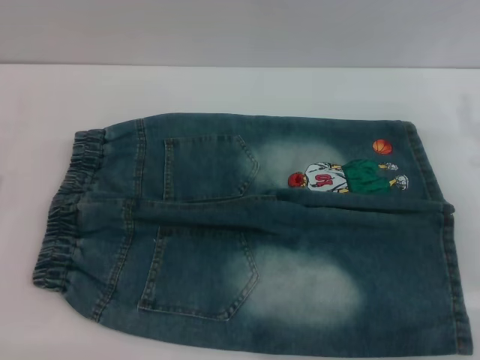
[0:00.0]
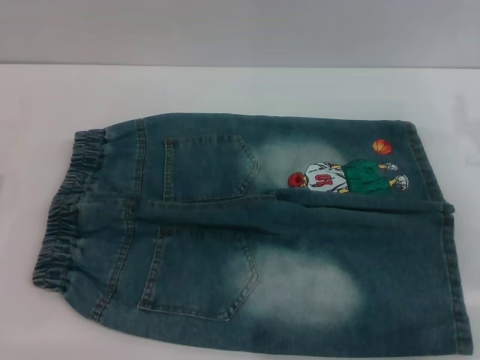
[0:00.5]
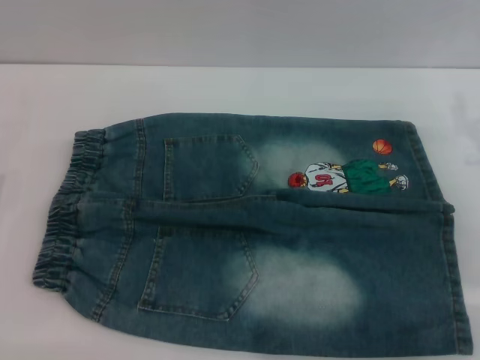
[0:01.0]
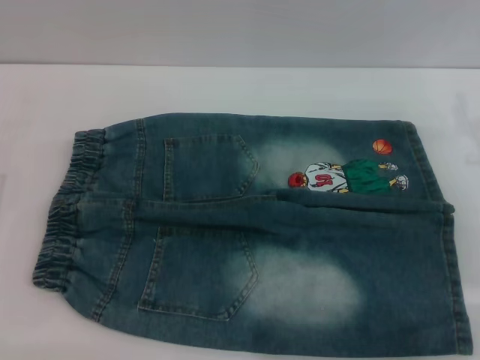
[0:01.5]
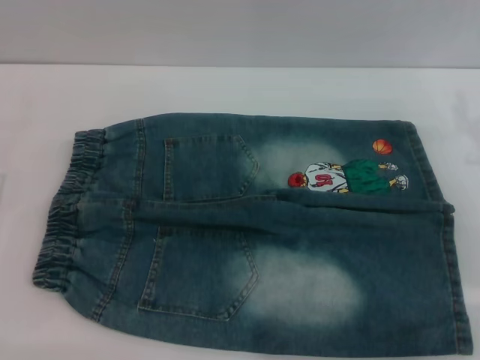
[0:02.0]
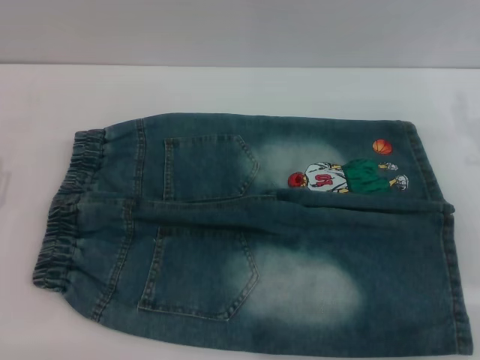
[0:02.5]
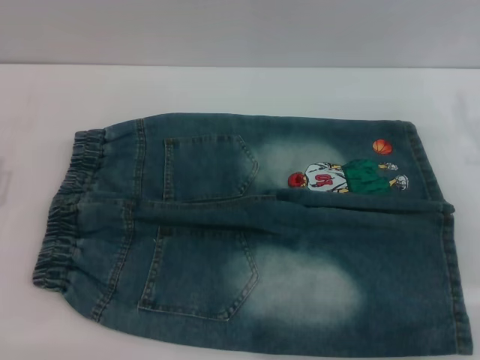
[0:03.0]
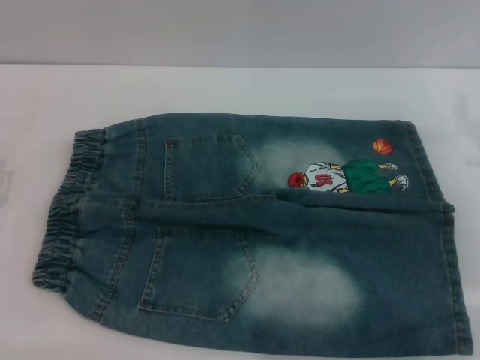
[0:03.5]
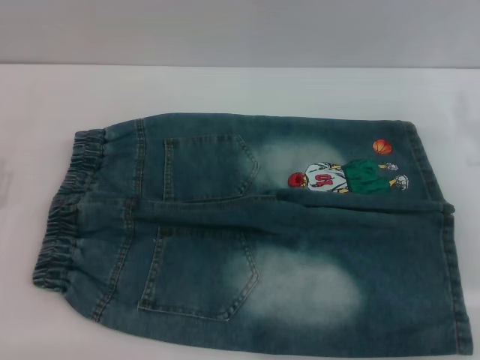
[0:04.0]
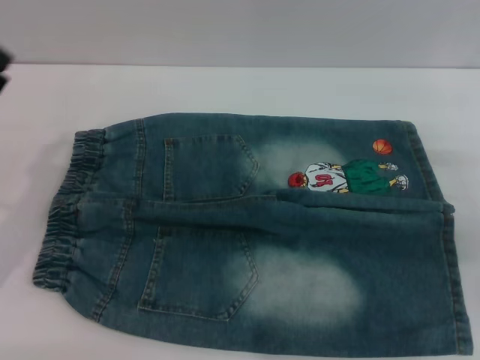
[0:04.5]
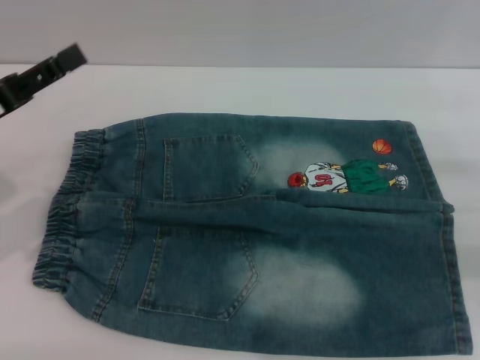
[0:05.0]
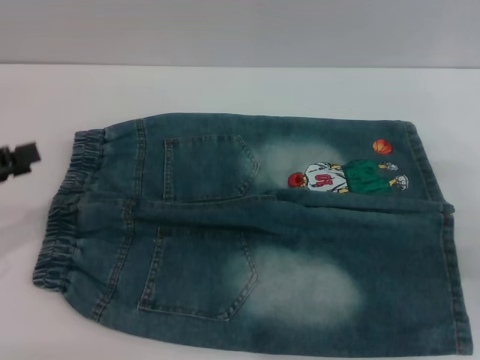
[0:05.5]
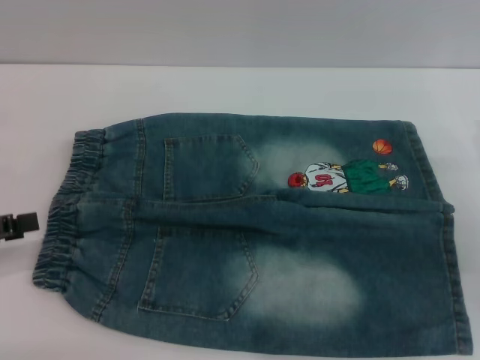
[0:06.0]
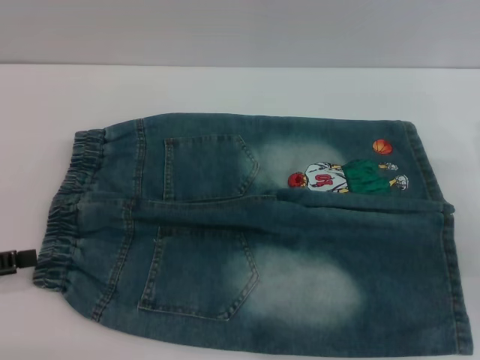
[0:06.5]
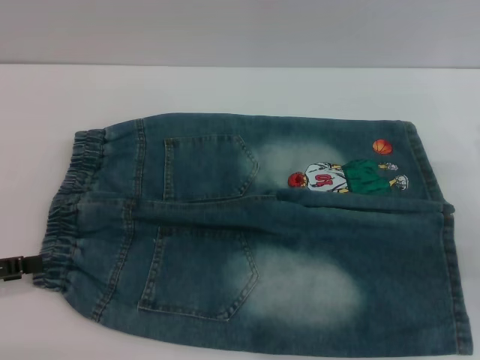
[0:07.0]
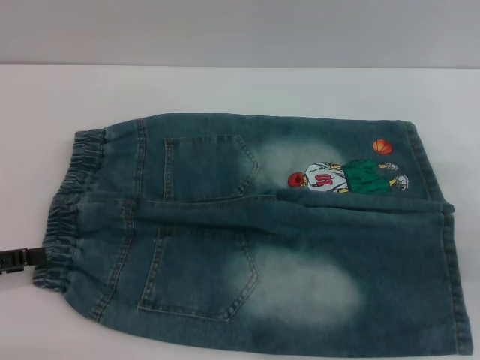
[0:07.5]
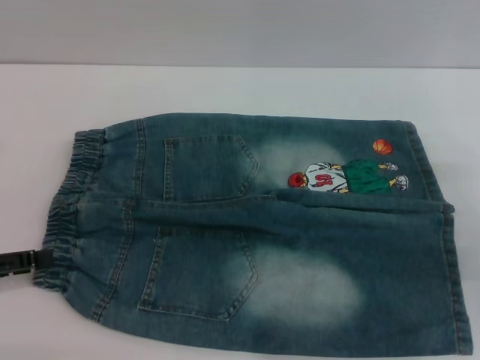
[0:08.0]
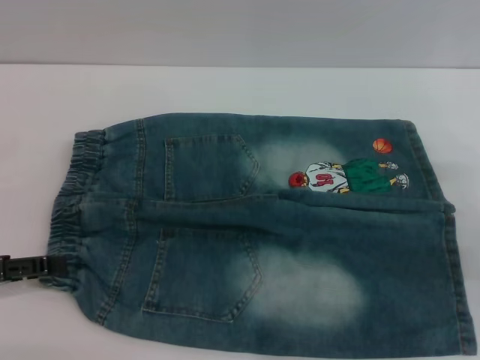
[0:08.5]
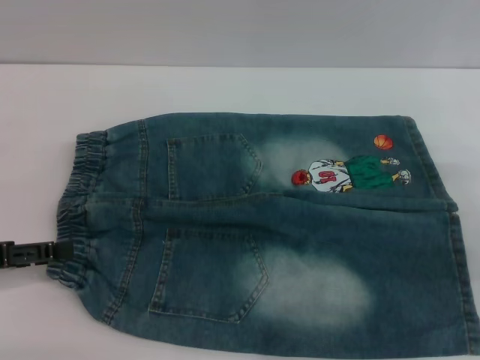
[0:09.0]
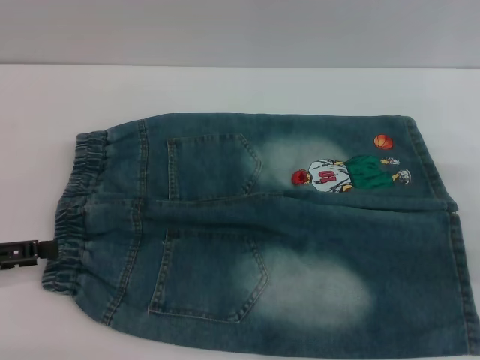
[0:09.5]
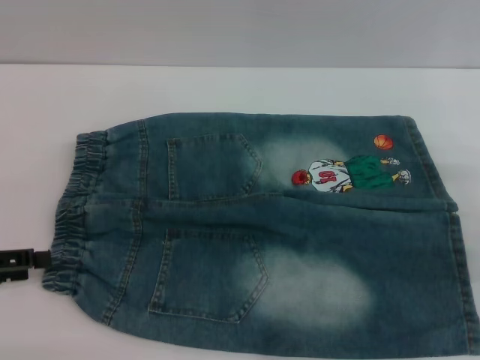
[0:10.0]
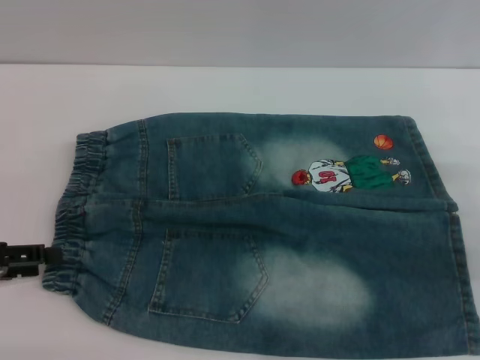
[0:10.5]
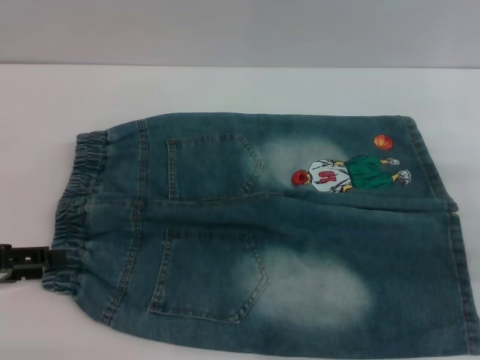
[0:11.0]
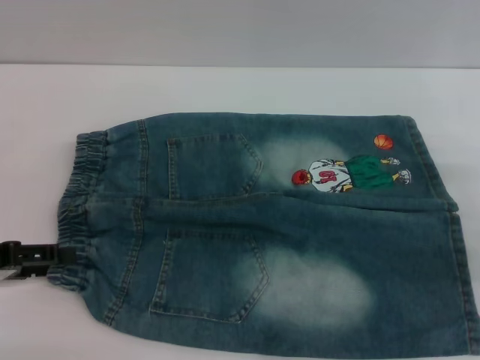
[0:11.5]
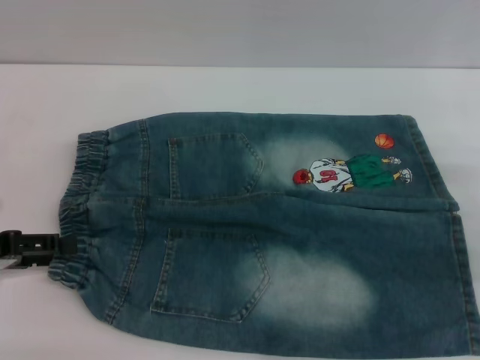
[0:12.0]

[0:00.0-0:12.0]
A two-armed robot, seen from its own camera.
0:00.0 to 0:04.0: The two grippers keep their place.
0:04.0 to 0:06.0: The left gripper goes about 10 cm upward and to the left.
0:06.0 to 0:12.0: The grippers stay close to where they were, moving slightly.

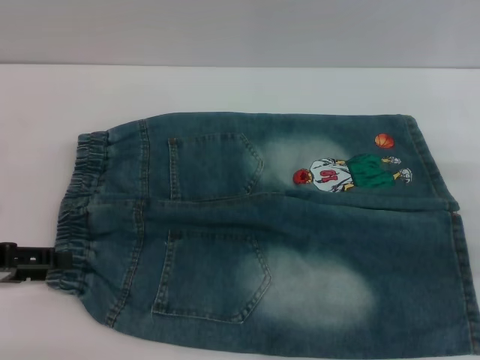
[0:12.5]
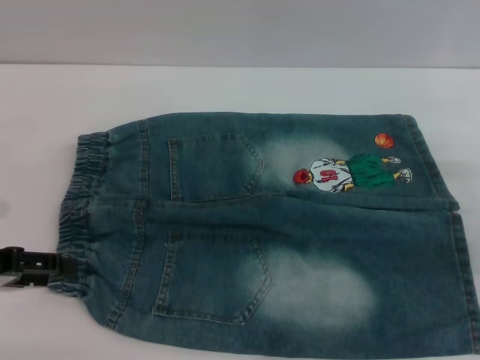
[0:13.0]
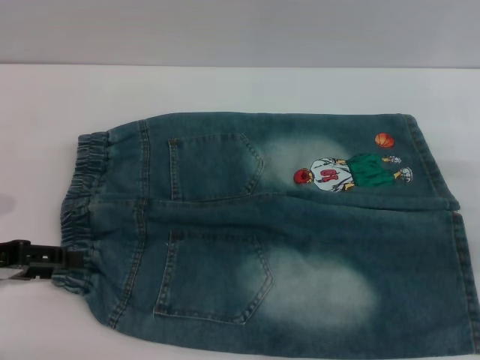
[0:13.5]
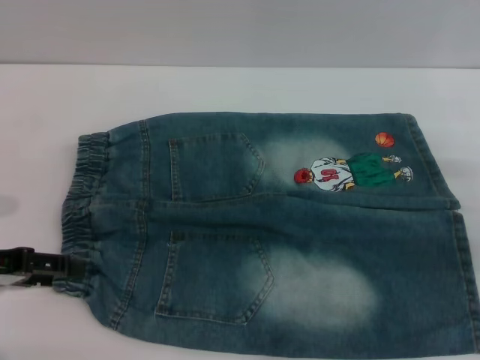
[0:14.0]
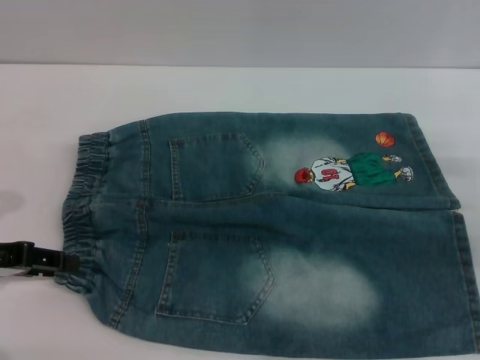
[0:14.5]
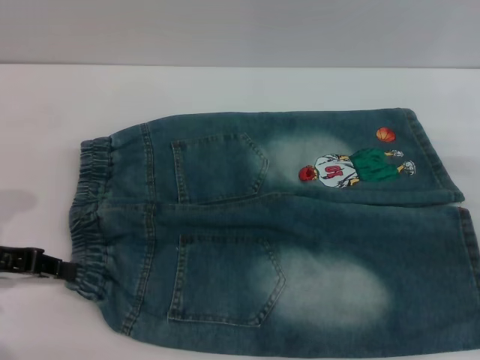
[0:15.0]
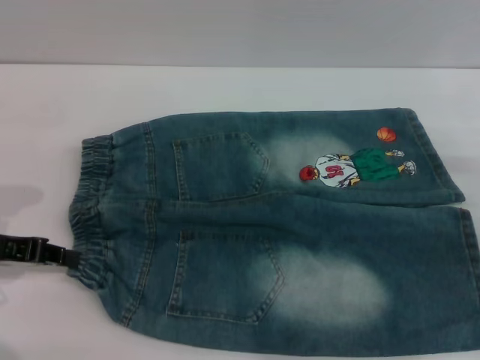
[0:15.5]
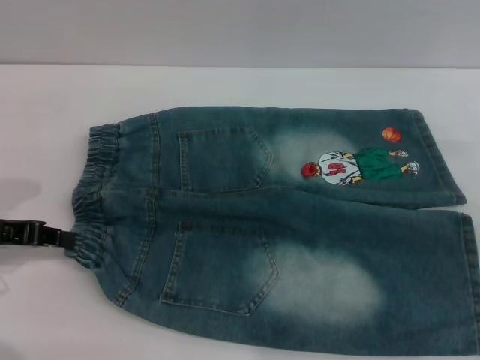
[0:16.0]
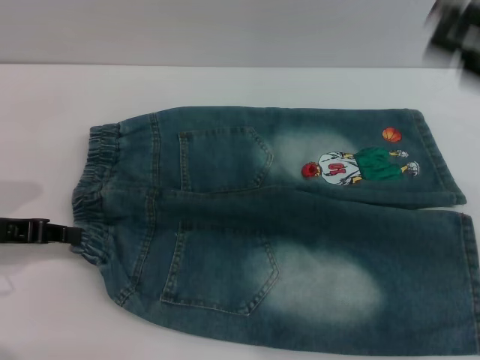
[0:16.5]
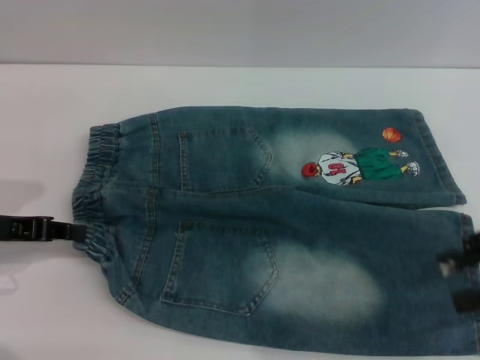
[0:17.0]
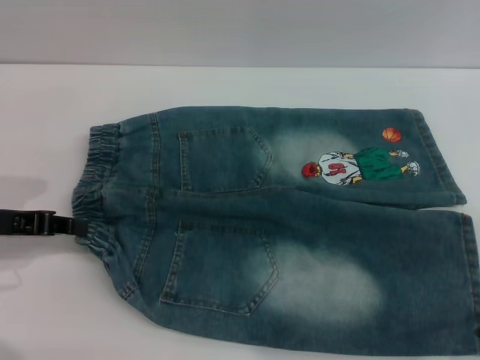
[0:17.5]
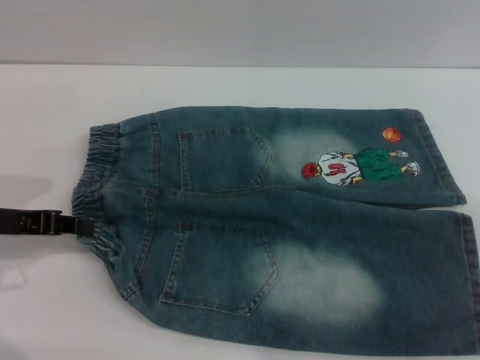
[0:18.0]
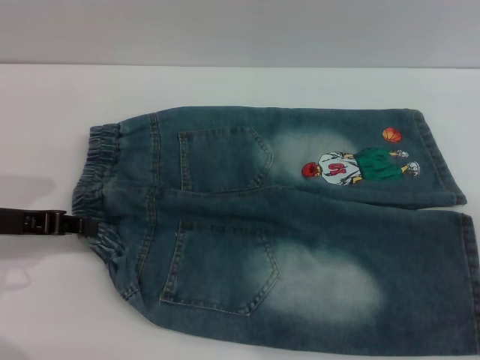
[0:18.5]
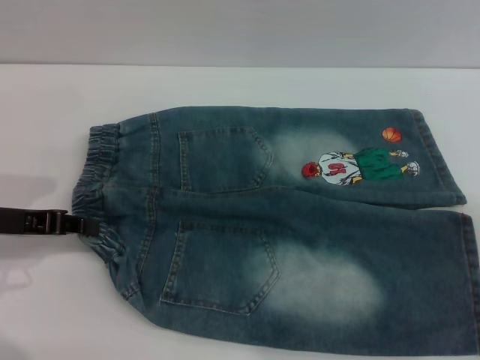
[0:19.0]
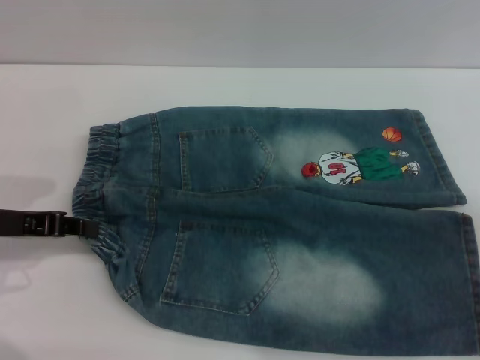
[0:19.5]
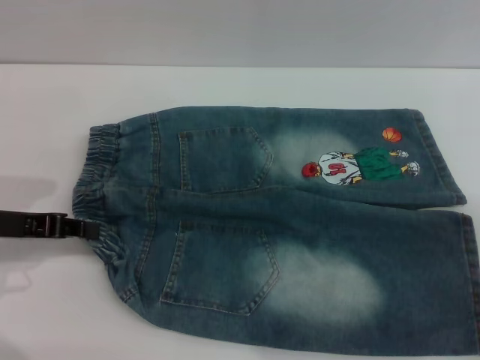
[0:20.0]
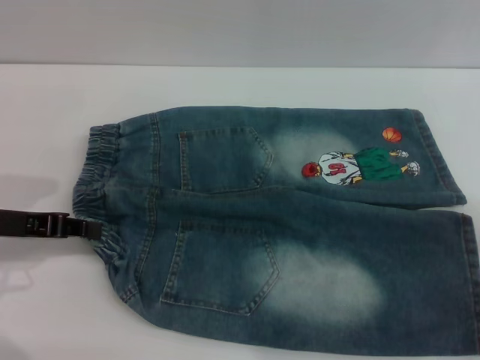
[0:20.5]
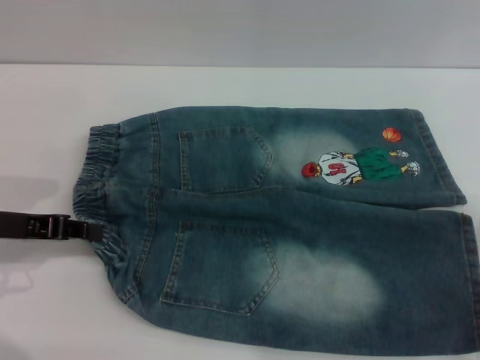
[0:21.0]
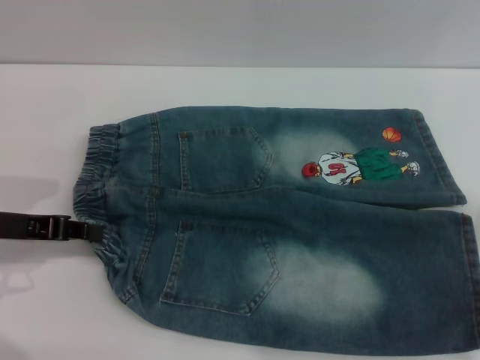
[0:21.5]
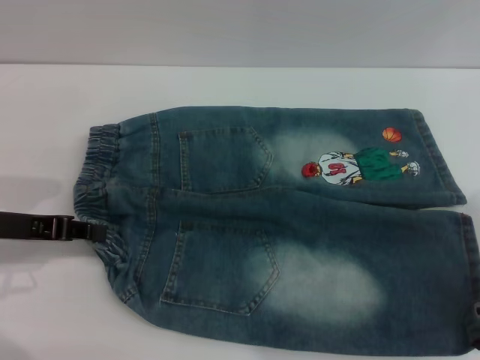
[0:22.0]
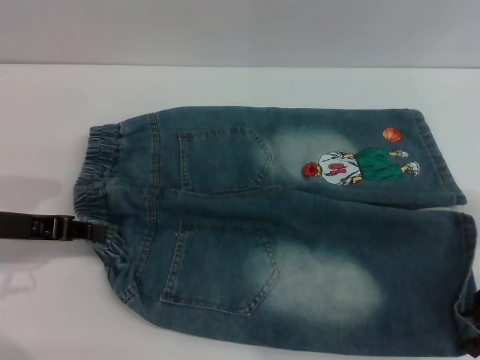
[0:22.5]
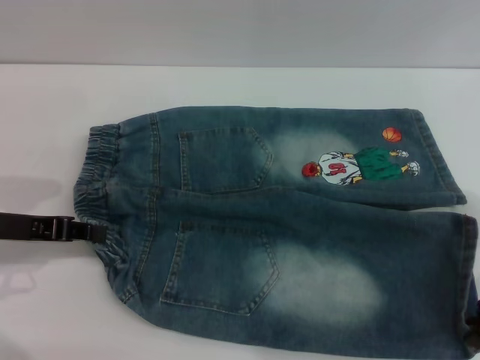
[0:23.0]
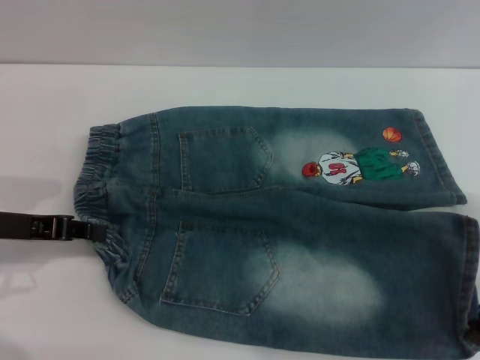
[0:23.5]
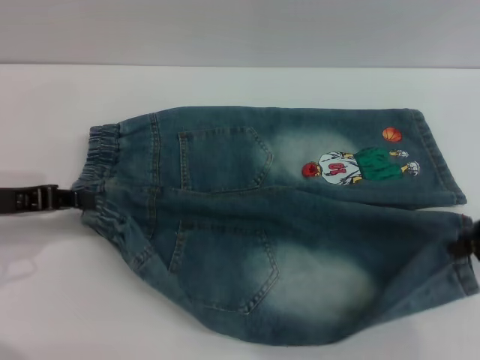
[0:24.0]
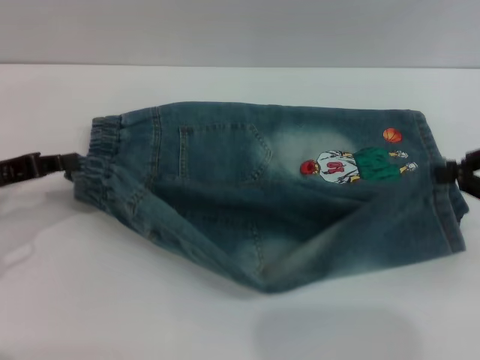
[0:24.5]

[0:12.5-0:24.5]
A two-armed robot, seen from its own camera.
0:12.5 to 0:14.5: The grippers make only small movements.
0:14.5 to 0:16.5: The left gripper closes. Meanwhile the right gripper shifts approximately 15 cm upward.
0:16.5 to 0:18.5: The right gripper is displaced downward and to the right by about 10 cm.
0:20.5 to 0:22.5: The grippers stay close to where they were, moving slightly.
0:22.5 to 0:24.5: The right gripper closes up.

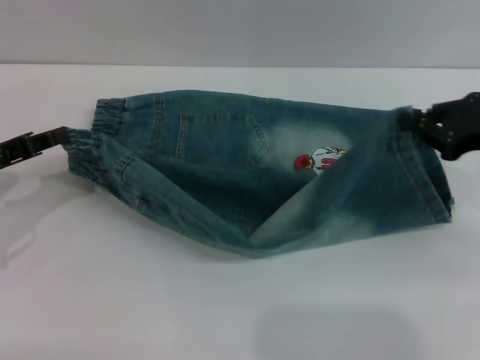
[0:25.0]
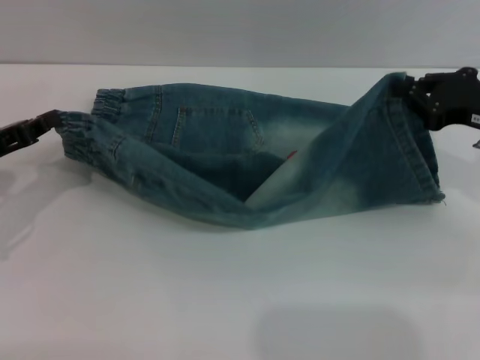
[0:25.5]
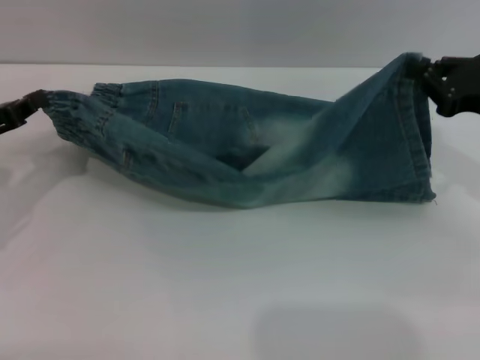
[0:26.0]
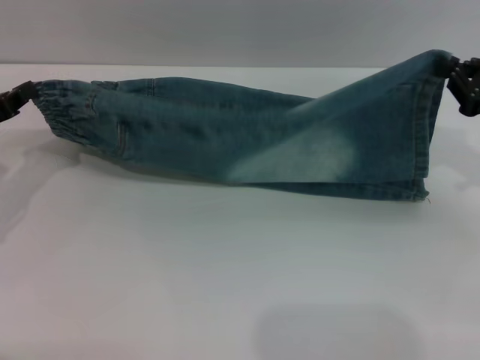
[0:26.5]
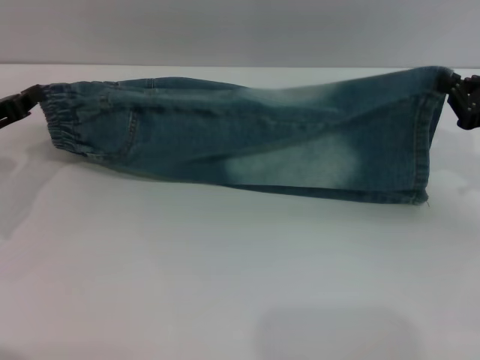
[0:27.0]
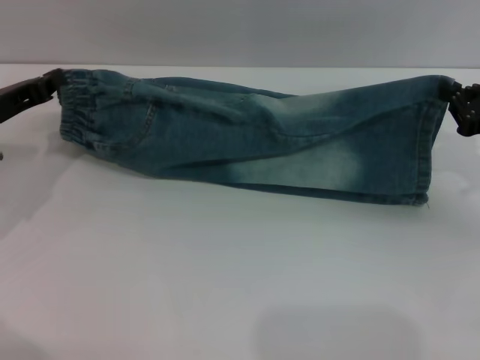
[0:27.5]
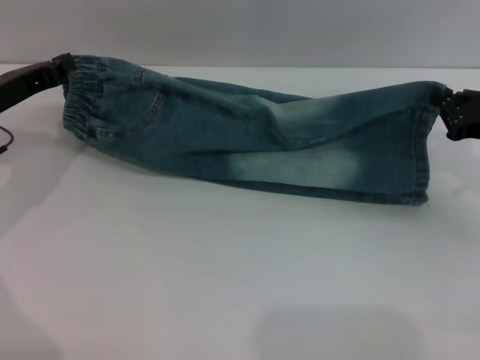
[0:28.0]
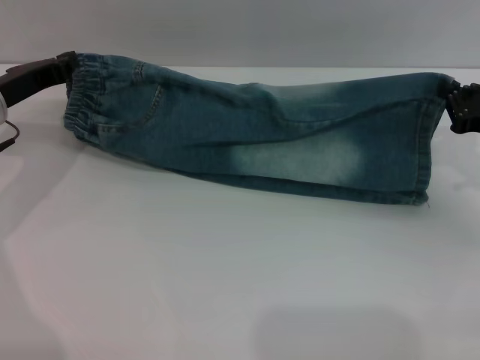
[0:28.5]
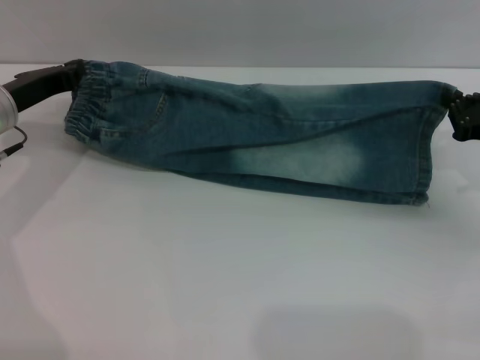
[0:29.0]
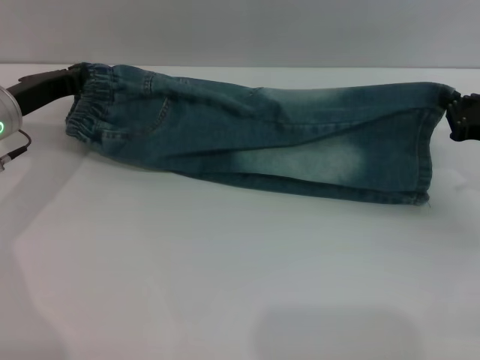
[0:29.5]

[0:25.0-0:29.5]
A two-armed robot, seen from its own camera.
0:27.0 to 0:29.5: The left gripper moves forward and to the right, roughly 10 cm.
